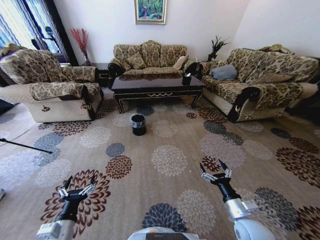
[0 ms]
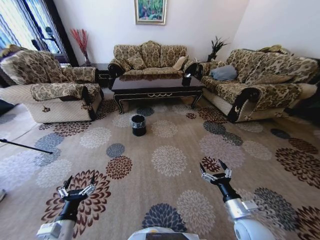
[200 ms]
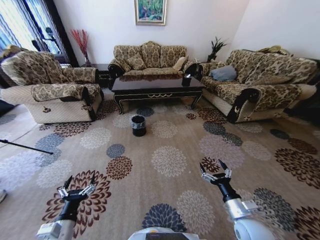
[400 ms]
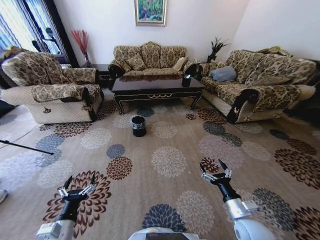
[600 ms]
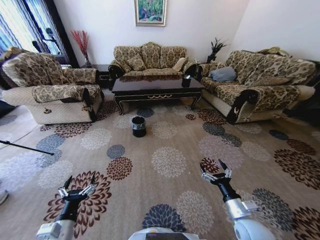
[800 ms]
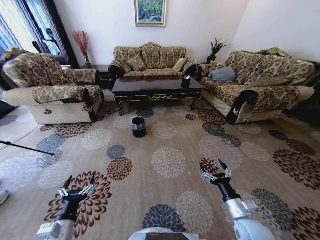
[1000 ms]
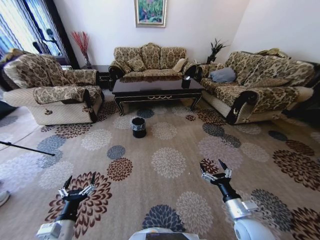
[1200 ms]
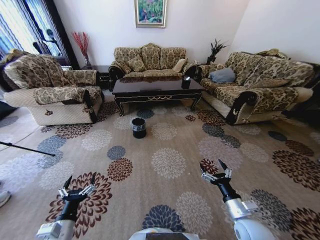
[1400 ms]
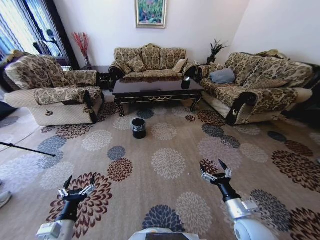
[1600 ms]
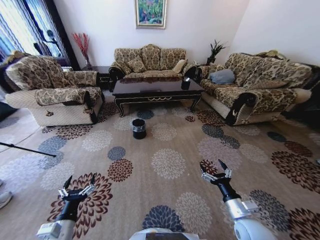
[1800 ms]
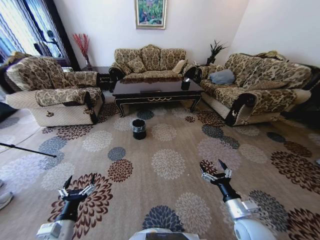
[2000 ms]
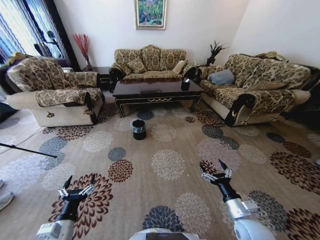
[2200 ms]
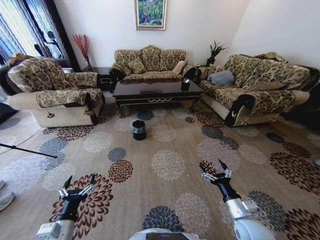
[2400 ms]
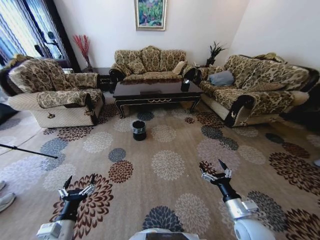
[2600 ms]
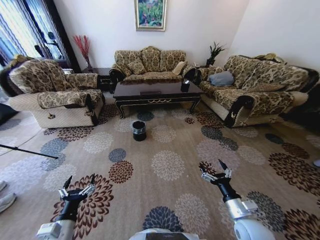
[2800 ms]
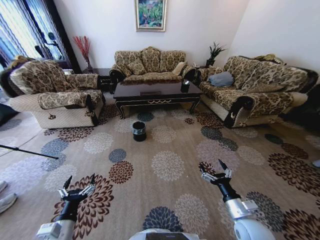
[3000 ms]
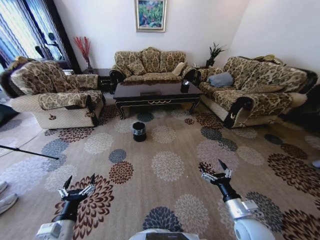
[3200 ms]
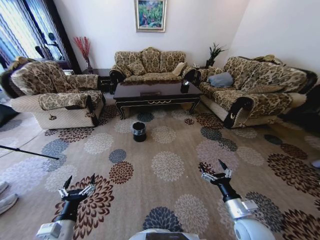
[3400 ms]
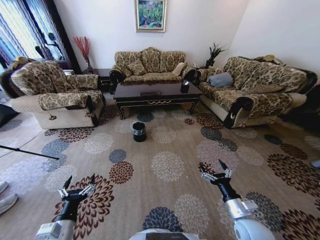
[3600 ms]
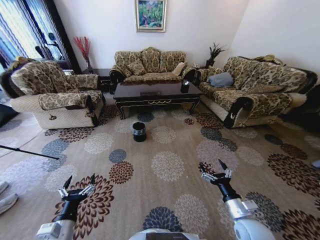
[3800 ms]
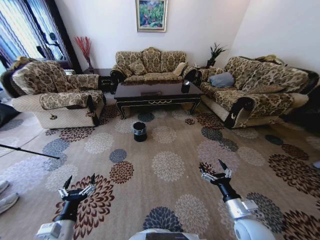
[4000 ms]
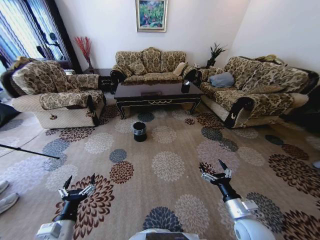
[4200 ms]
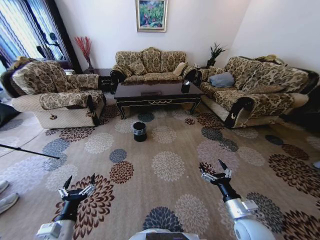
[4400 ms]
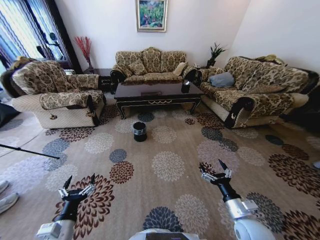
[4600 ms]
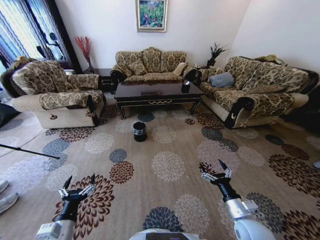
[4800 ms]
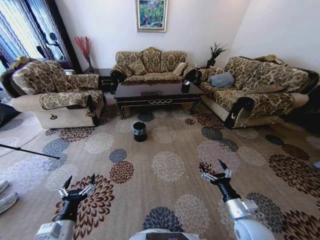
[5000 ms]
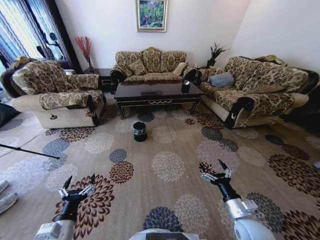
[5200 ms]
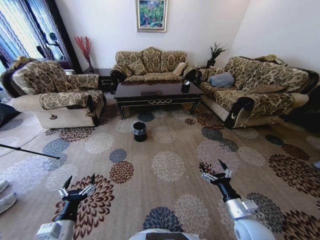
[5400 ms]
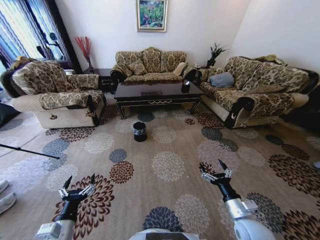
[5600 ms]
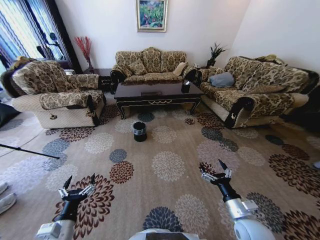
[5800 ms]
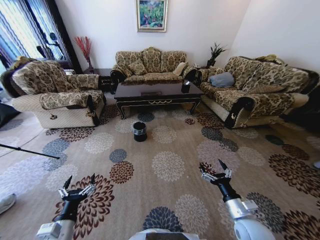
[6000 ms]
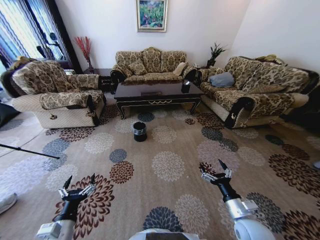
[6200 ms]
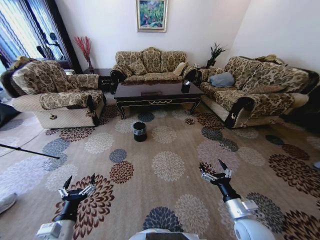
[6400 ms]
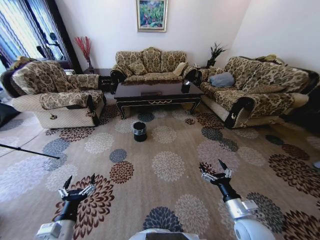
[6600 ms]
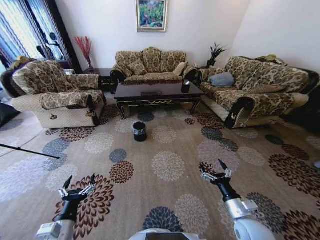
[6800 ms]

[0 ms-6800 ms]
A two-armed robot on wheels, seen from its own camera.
Task of the whole recording: Move to the front of the table and pick up the trash from the floor, then place it into the trash bin.
2800 ms to 6800 ms: Neither gripper changes place.
